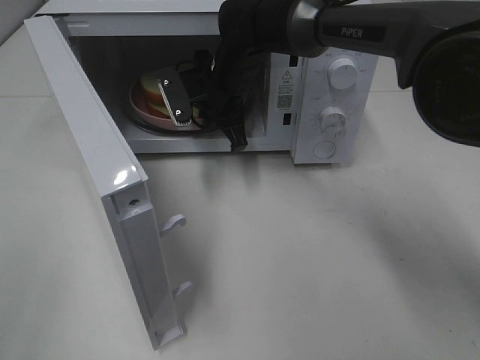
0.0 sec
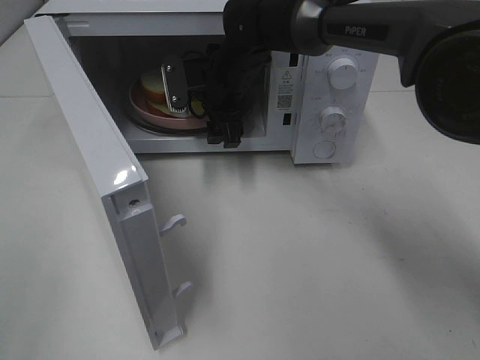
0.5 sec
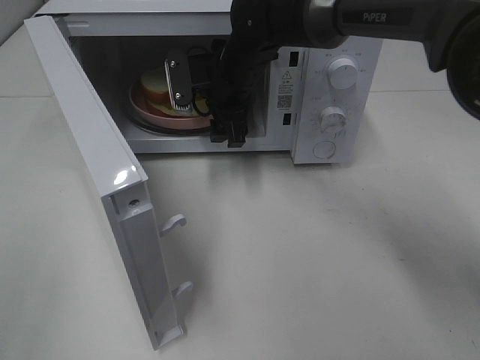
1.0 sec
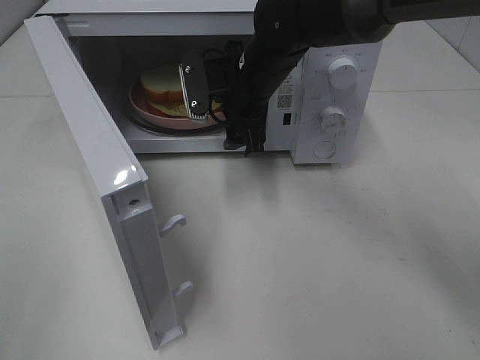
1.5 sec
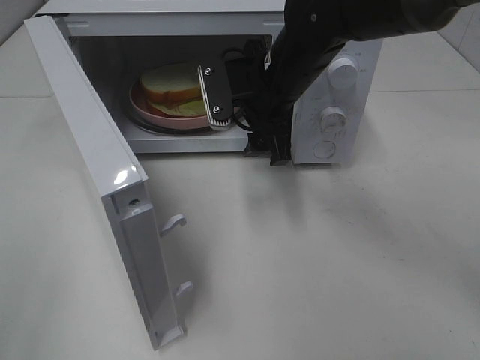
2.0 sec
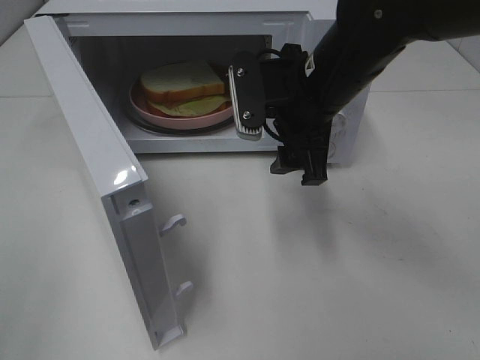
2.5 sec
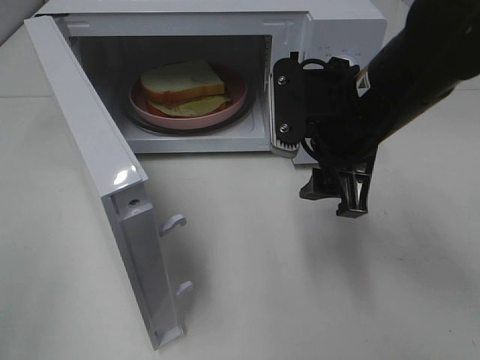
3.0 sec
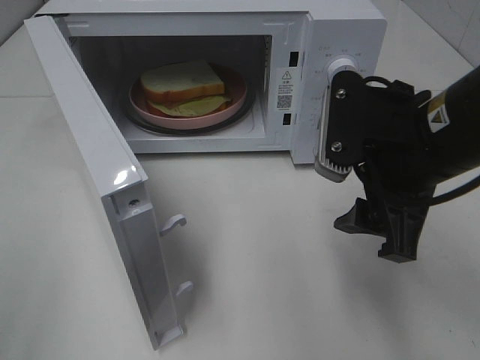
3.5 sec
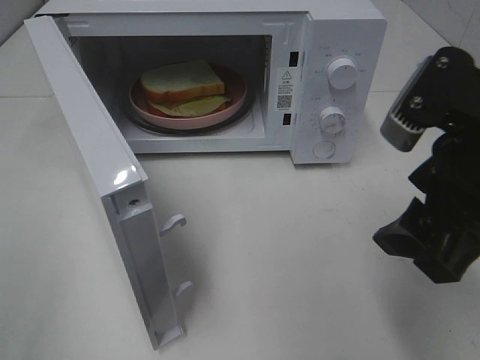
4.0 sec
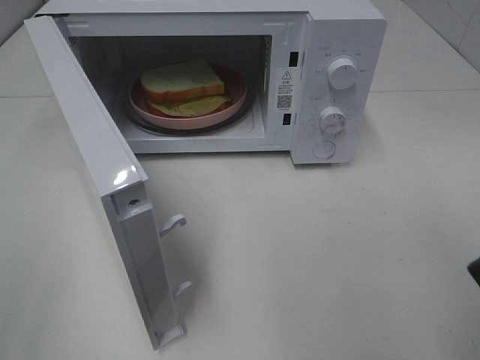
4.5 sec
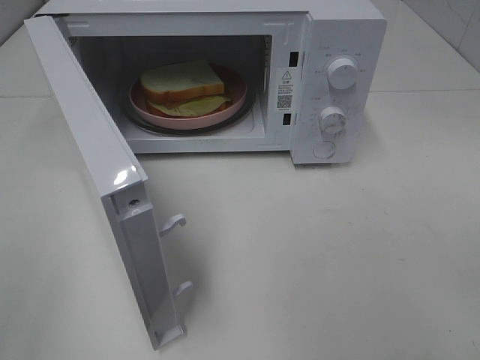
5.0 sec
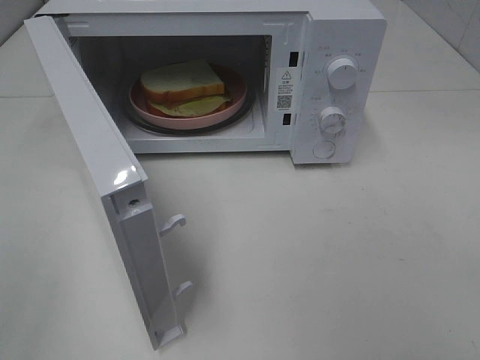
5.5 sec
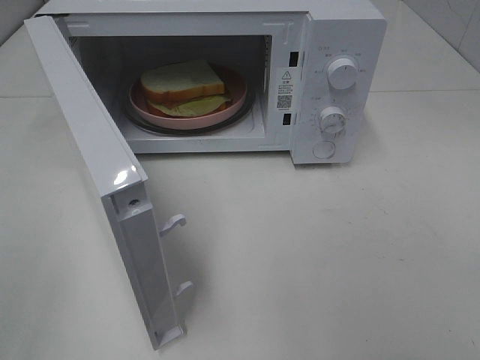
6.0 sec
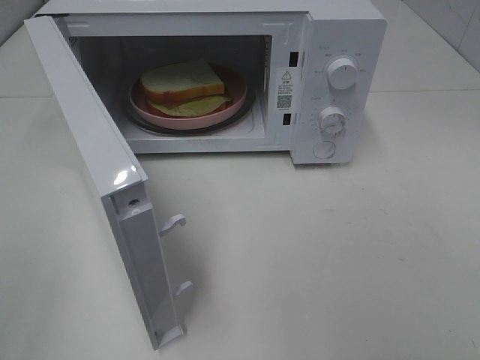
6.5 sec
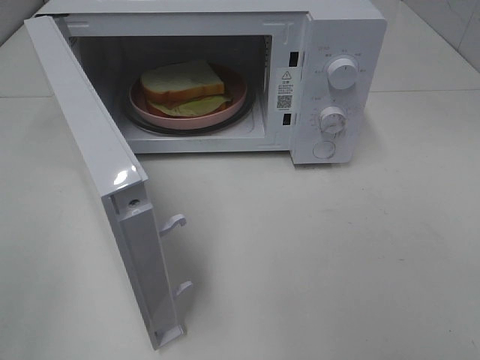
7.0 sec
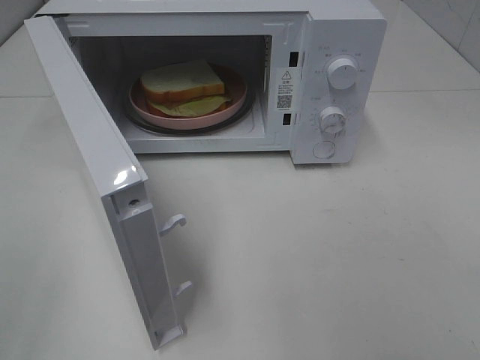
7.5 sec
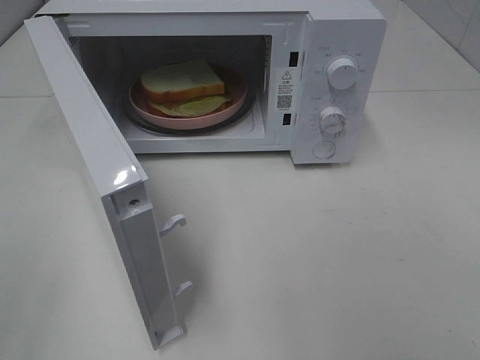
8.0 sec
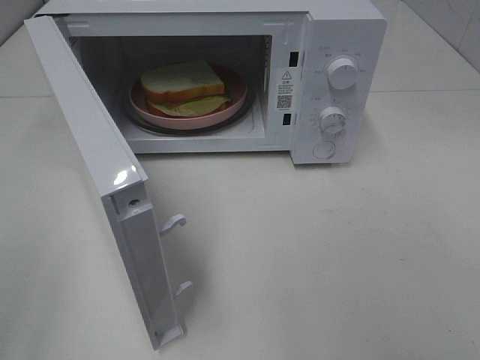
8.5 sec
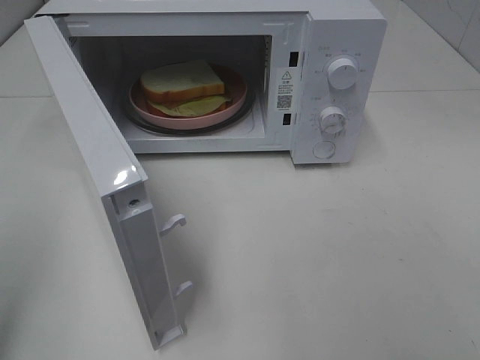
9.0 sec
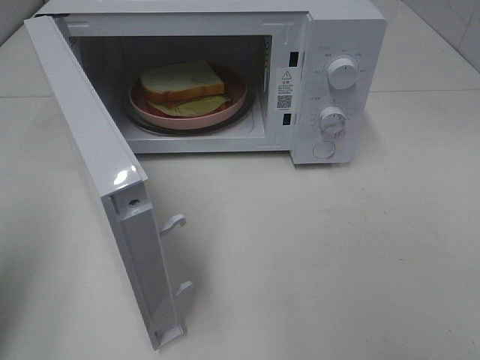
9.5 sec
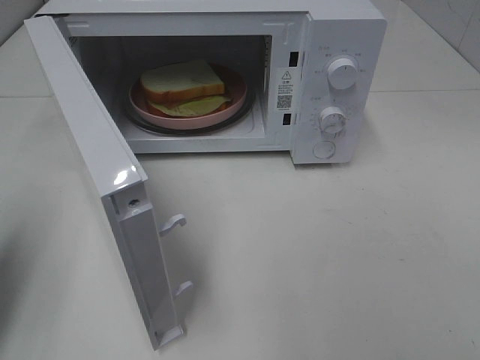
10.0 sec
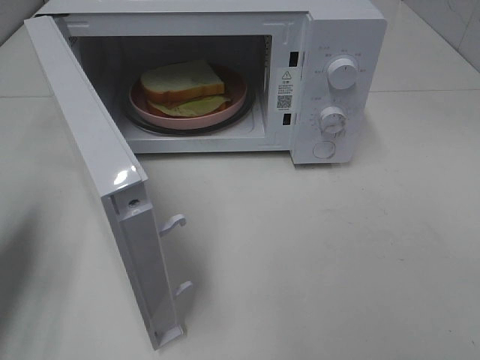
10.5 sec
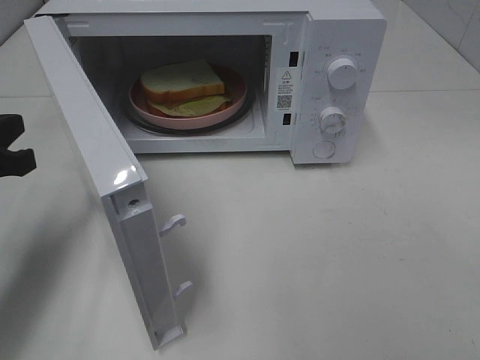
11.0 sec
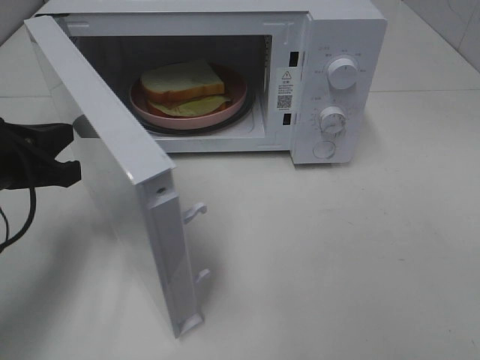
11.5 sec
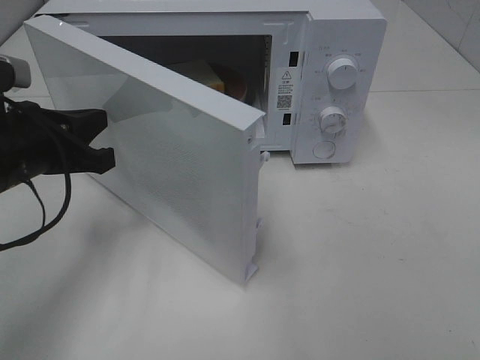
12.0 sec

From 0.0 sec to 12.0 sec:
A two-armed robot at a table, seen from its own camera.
Task of the whole recording: Heat Sandwich.
From 0.0 sec to 2.0 sec: The right gripper goes about 10 cm backward and to the right, and opens its fingers.
From 2.0 sec to 4.0 sec: The right gripper travels backward and to the right by about 25 cm.
From 4.0 sec to 6.0 sec: The right gripper travels backward and to the right by about 20 cm.
From 8.0 sec to 10.0 sec: The left gripper is displaced forward by roughly 15 cm, and closes its fingers.
From 10.0 sec to 12.0 sec: The left gripper is displaced to the right and forward by some 15 cm.

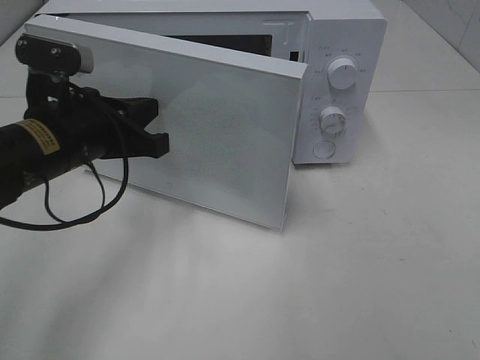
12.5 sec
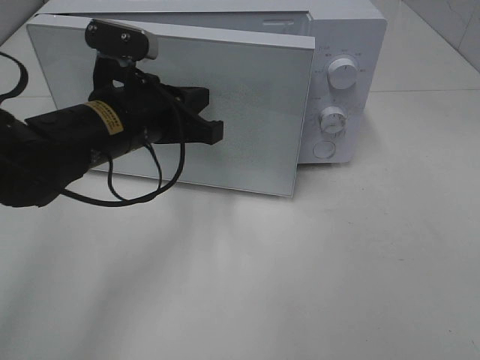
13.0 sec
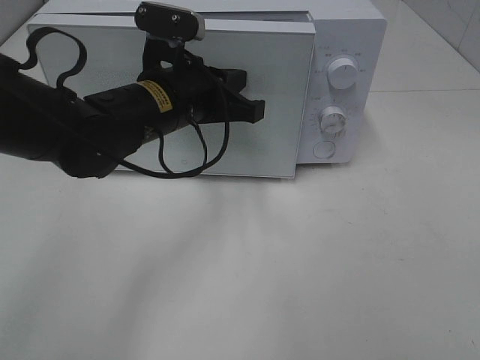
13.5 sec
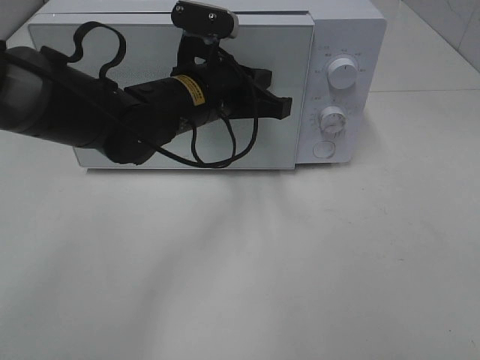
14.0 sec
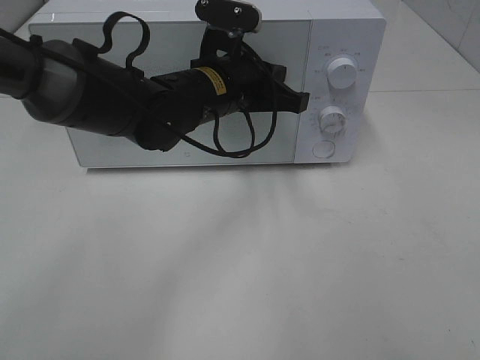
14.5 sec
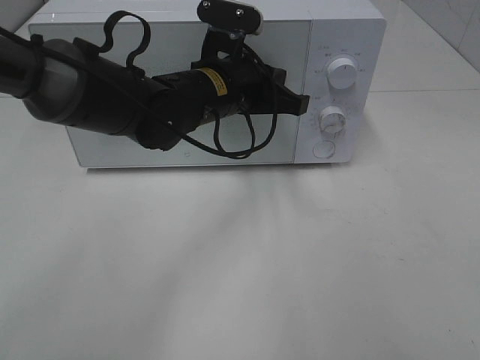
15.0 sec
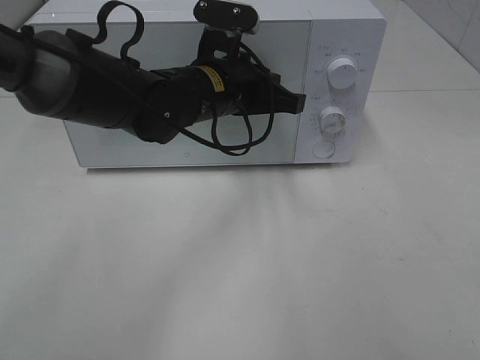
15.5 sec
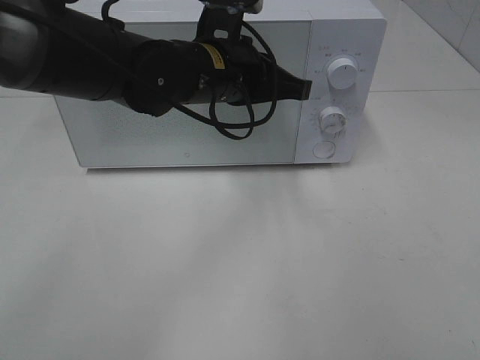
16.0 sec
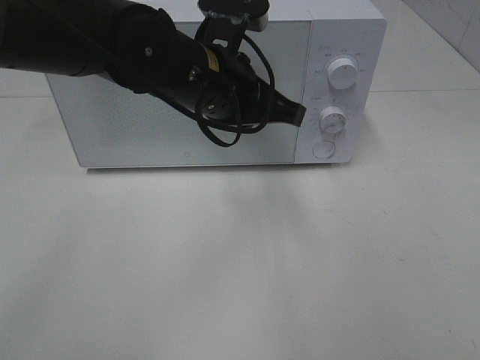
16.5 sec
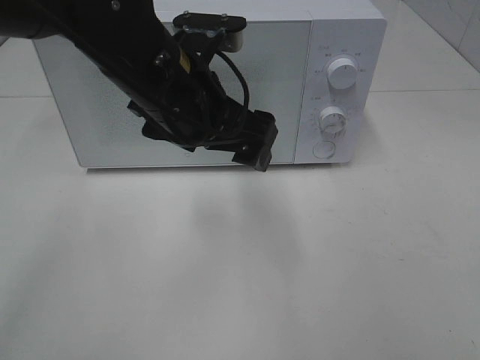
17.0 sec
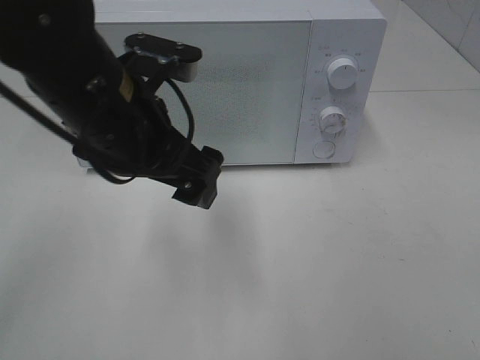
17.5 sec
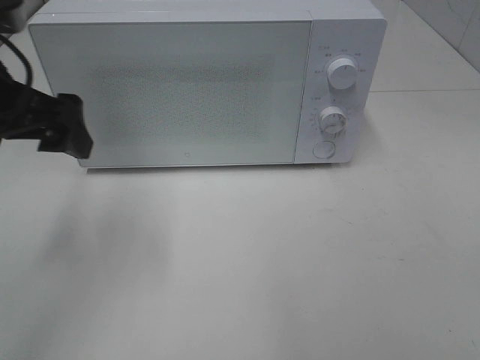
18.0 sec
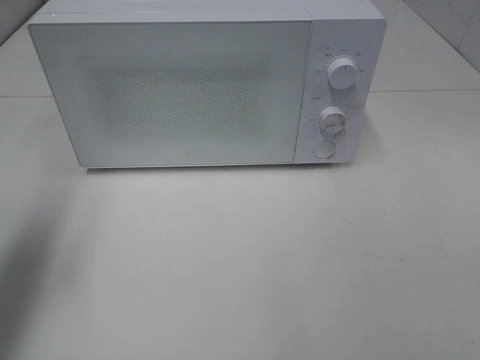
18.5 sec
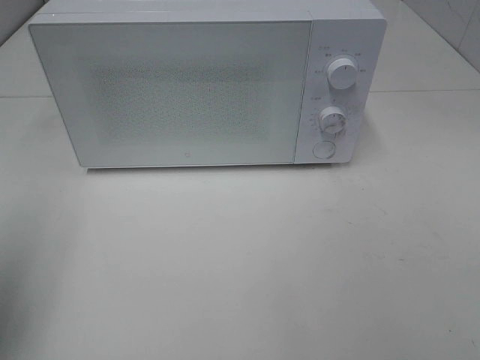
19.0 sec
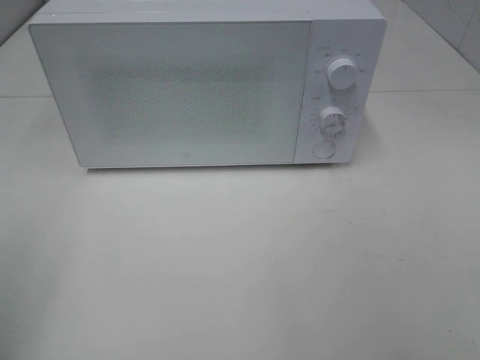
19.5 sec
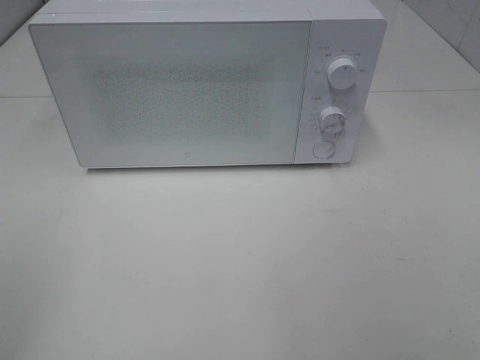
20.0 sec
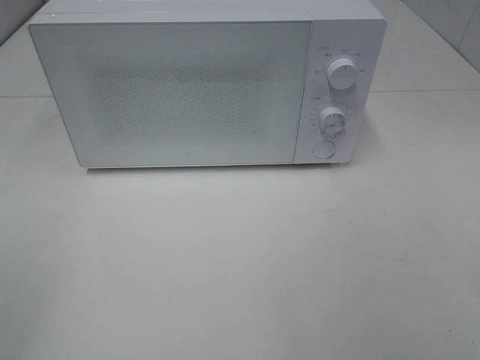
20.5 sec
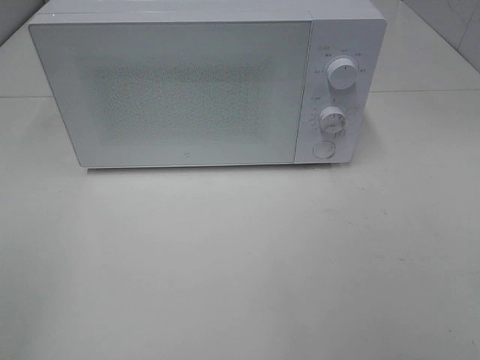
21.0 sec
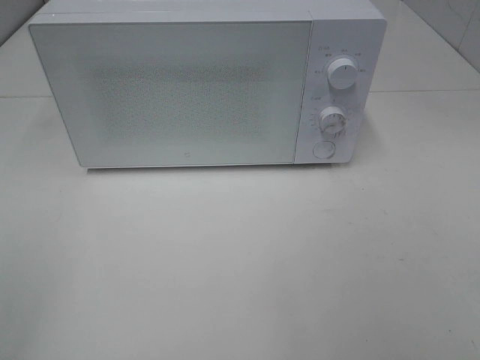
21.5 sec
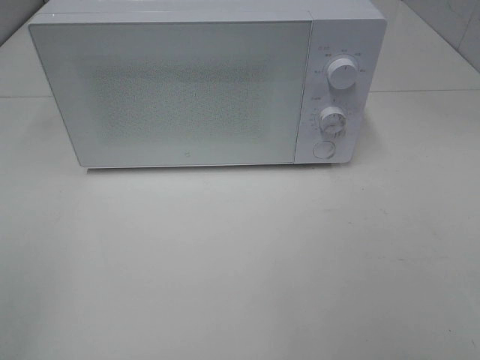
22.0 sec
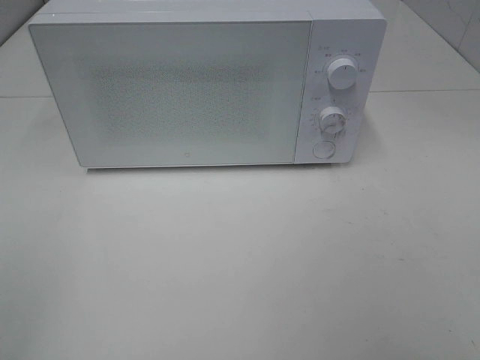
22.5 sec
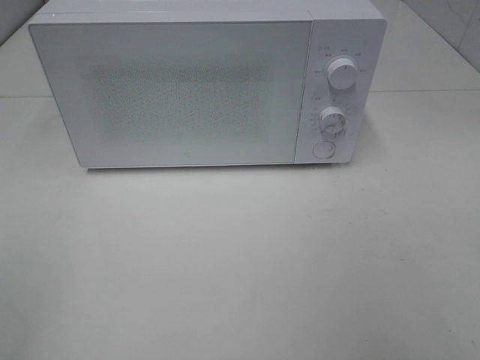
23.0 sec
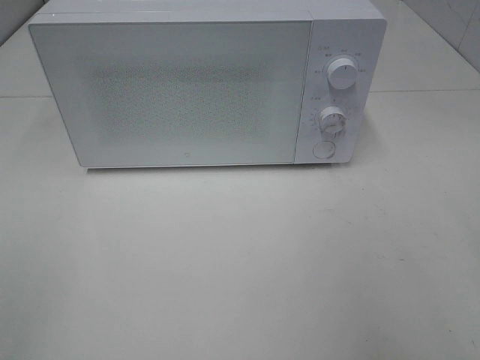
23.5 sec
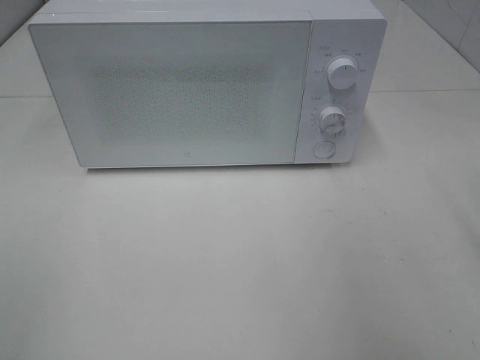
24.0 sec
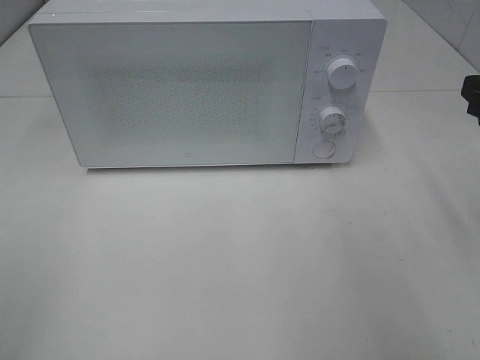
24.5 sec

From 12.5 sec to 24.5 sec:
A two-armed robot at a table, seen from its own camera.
Task of the whole recording: Heat Sandwich.
Step, from 12.5 sec to 17.0 sec: Left hand: close the microwave door.
From 12.5 sec to 14.5 sec: The left gripper shifts approximately 15 cm to the right and forward.
From 14.5 sec to 16.5 sec: The left gripper changes place by roughly 5 cm.
From 16.5 sec to 18.5 sec: The left gripper heads to the left, covering about 30 cm, and opens its fingers.
From 18.5 sec to 20.5 sec: The left gripper shifts about 20 cm backward.
From 20.5 sec to 22.5 sec: Neither gripper changes place.

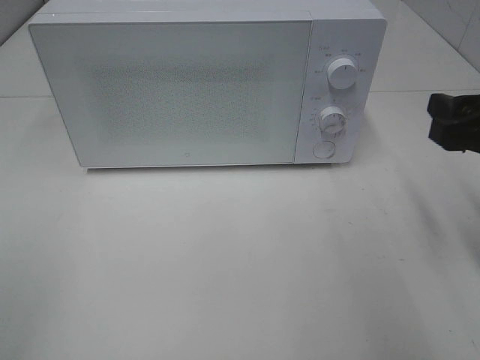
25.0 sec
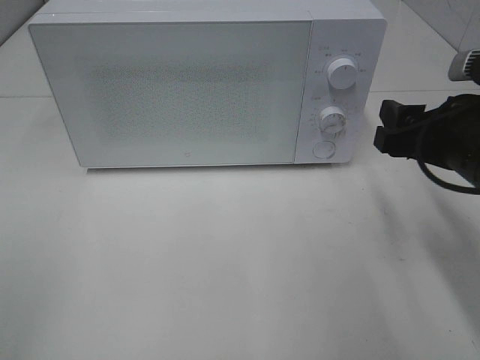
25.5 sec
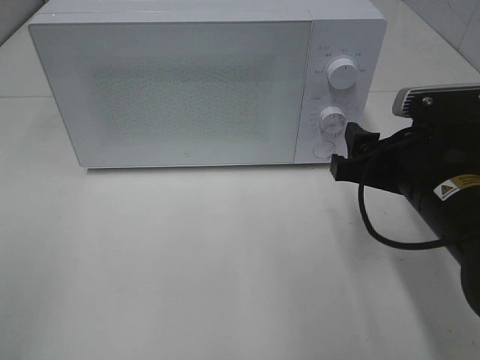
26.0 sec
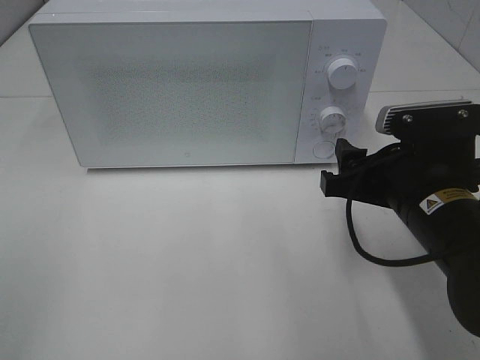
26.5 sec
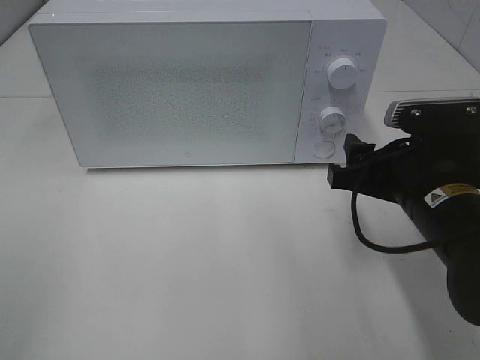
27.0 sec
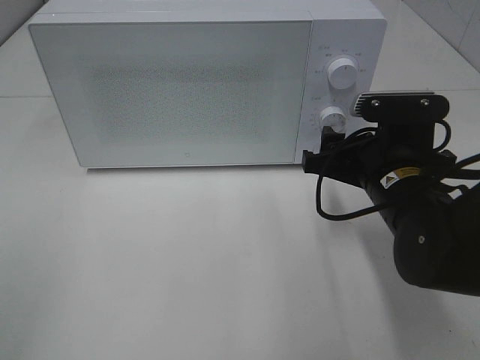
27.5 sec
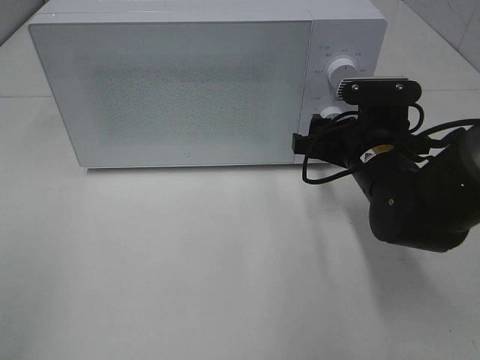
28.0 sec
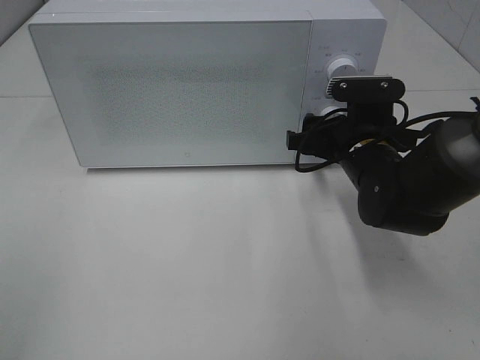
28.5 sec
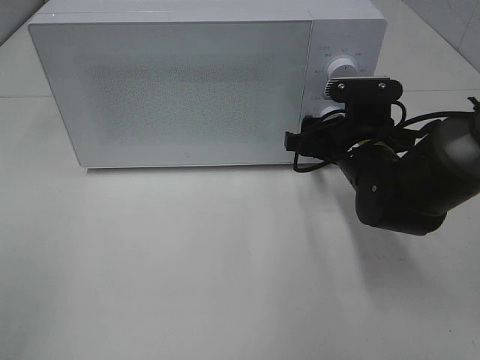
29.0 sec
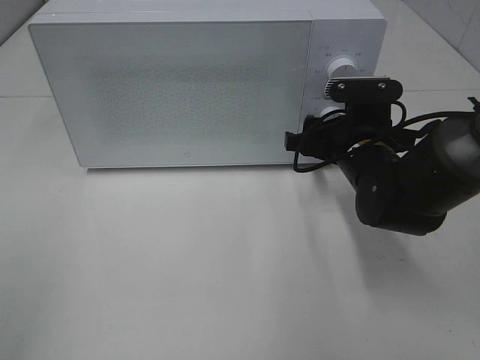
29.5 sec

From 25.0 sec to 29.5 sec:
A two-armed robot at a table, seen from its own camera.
Task of the whole recording: Heat Sandwich.
From 25.0 sec to 27.0 sec: The right gripper goes about 10 cm to the left and downward.
From 27.0 sec to 29.5 sec: The right gripper travels forward by approximately 10 cm.
